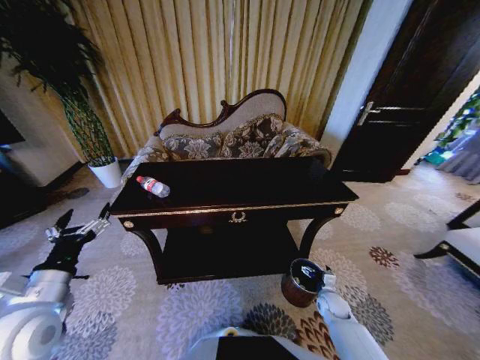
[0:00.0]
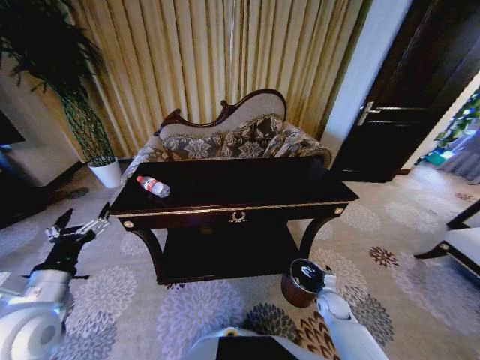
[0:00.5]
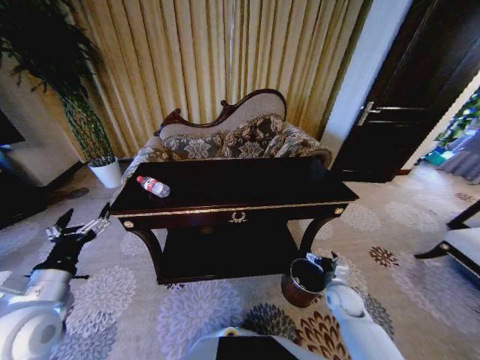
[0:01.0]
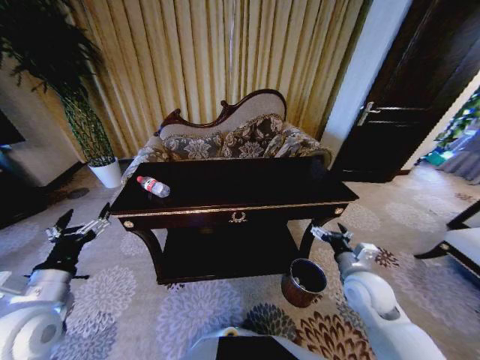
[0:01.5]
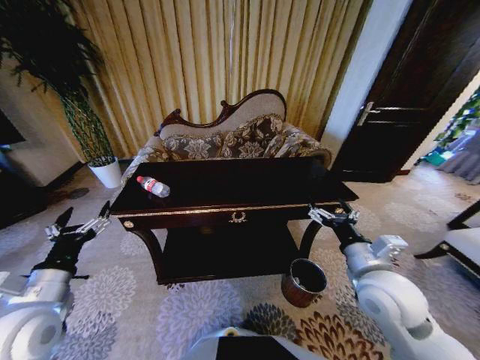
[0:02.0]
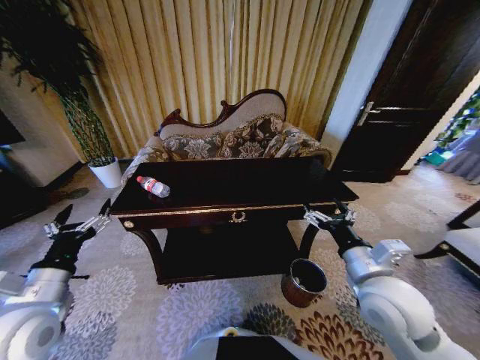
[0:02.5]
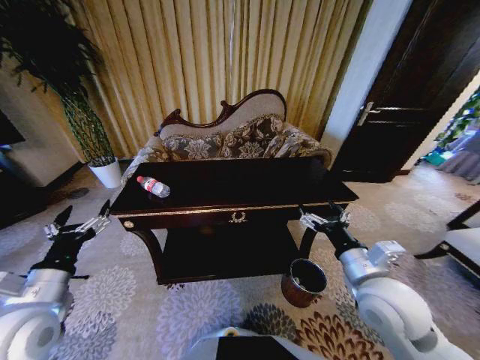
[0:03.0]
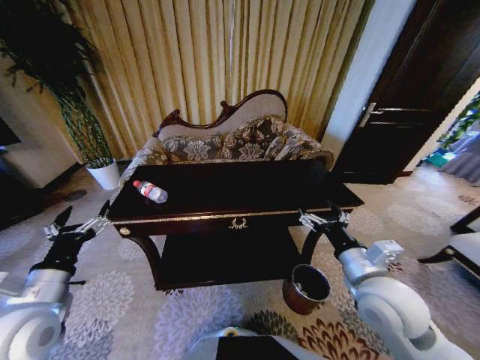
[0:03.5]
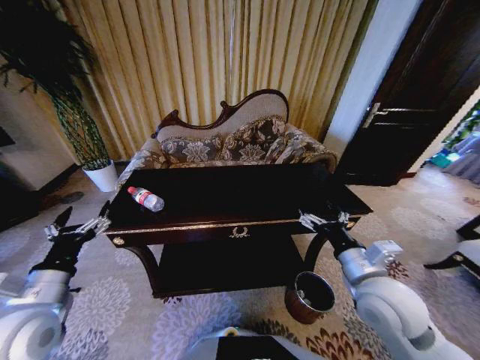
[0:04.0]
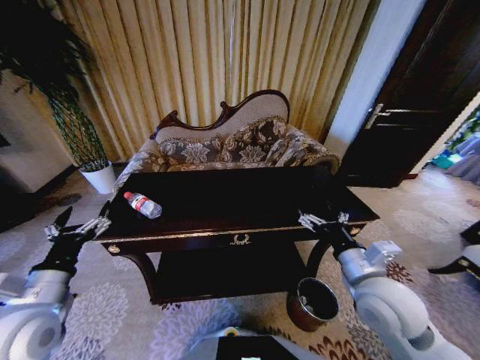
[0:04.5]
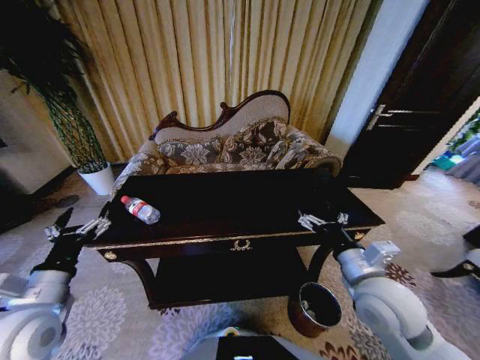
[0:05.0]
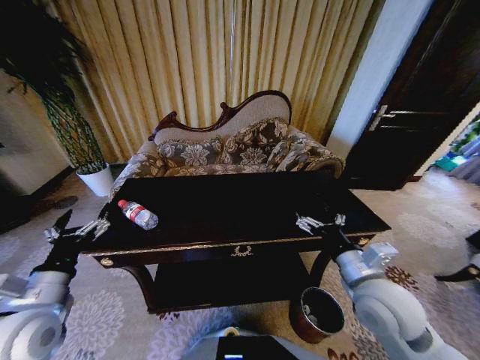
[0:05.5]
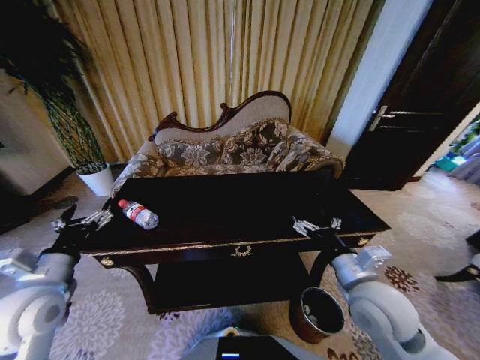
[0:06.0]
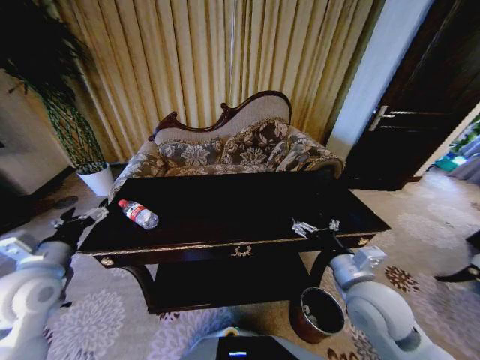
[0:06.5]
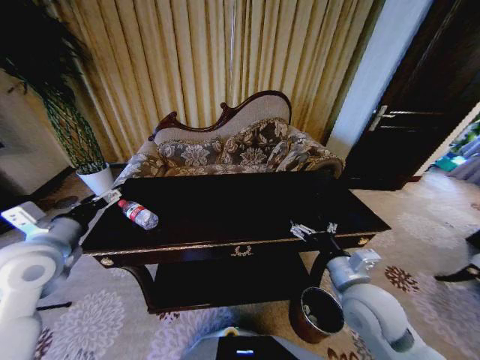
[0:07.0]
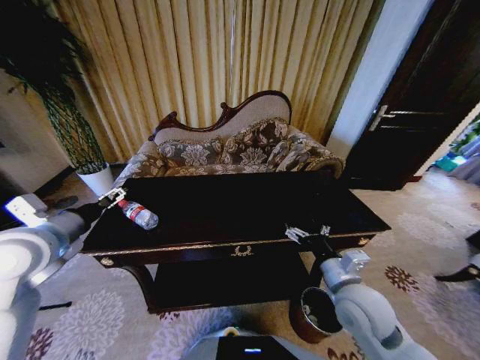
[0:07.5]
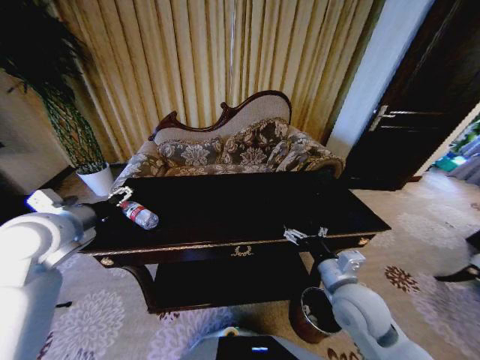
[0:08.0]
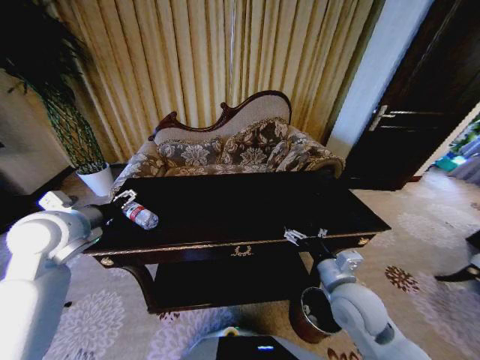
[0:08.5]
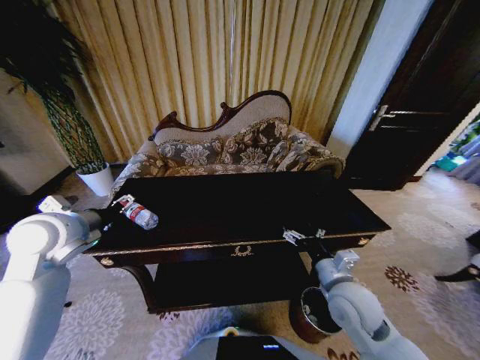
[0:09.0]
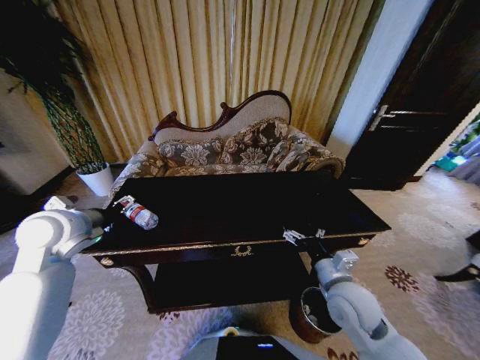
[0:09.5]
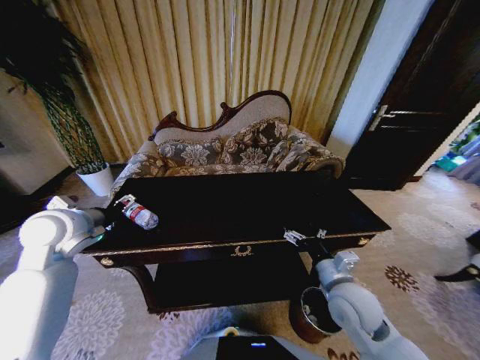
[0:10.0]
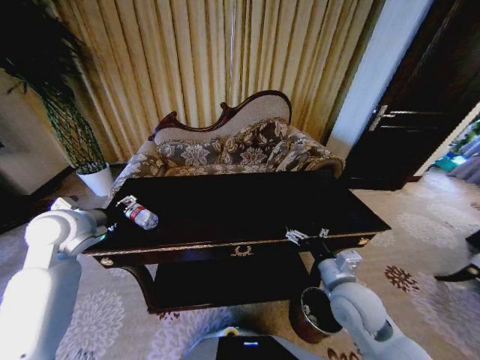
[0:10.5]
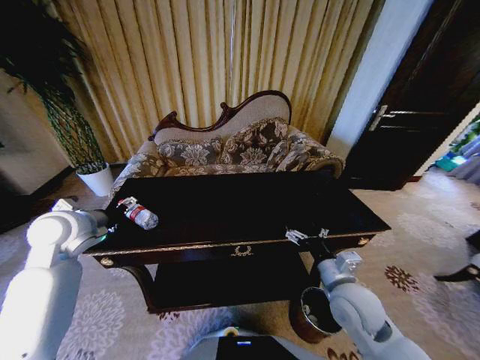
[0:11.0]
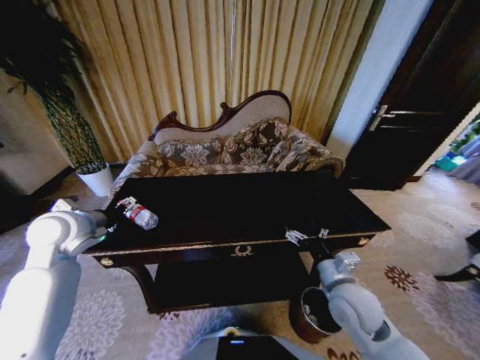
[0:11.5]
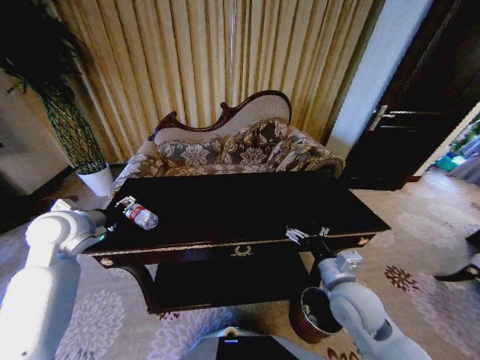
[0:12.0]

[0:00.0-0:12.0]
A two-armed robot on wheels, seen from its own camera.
Task of the whole recording: Move to the front of the table and place the trash on the table into the trash bin.
0:00.0 to 0:02.0: The right gripper shifts approximately 35 cm upward.
0:06.0 to 0:08.0: The left gripper moves forward and upward, about 15 cm.
0:08.0 to 0:10.0: The grippers stay close to where they were, moving slightly.
0:10.0 to 0:12.0: The grippers stay close to where they were, moving slightly.

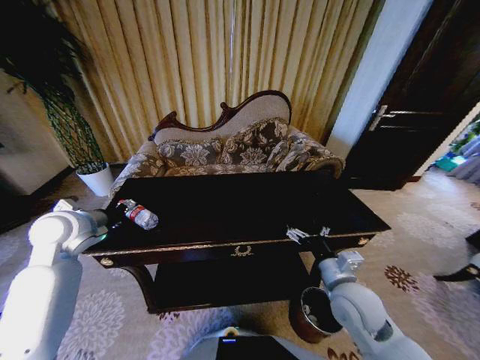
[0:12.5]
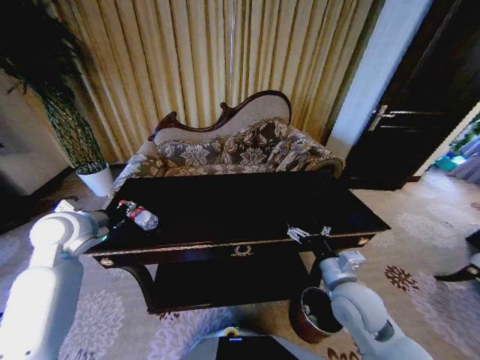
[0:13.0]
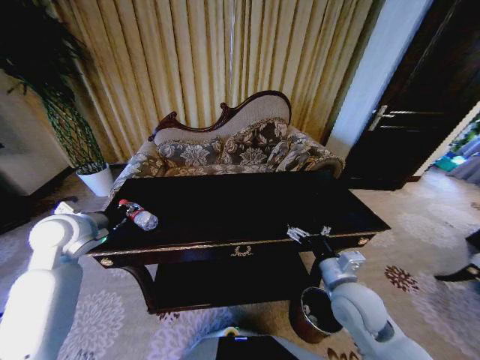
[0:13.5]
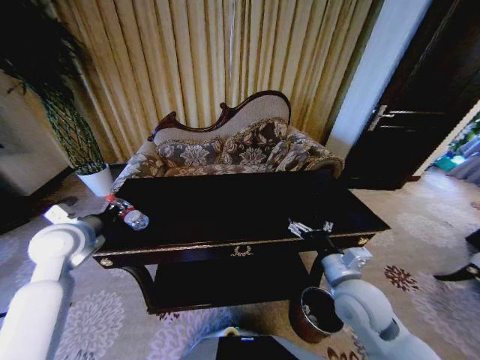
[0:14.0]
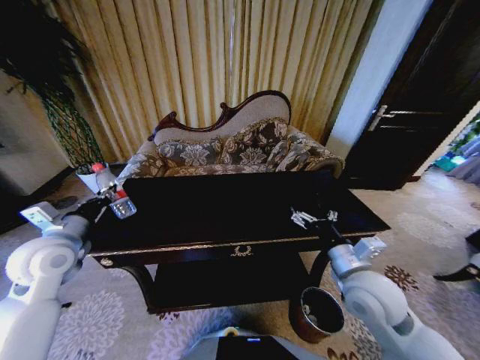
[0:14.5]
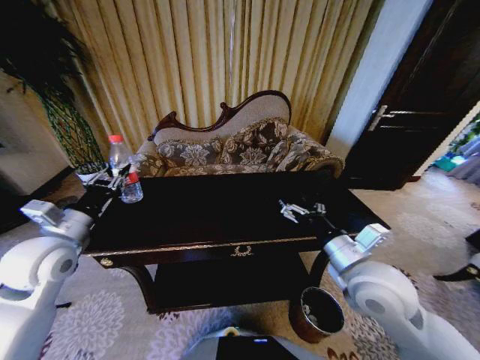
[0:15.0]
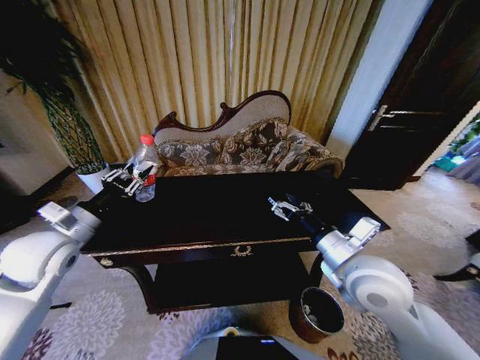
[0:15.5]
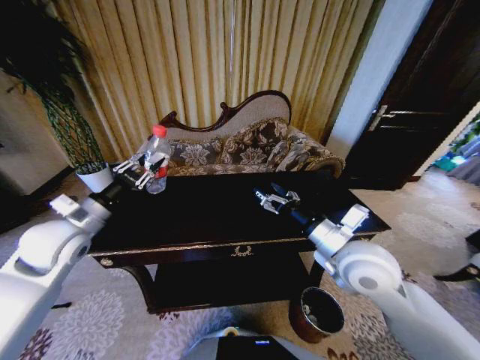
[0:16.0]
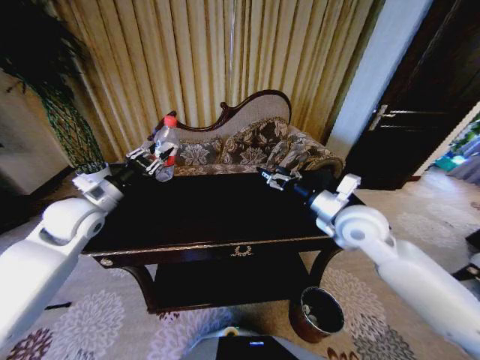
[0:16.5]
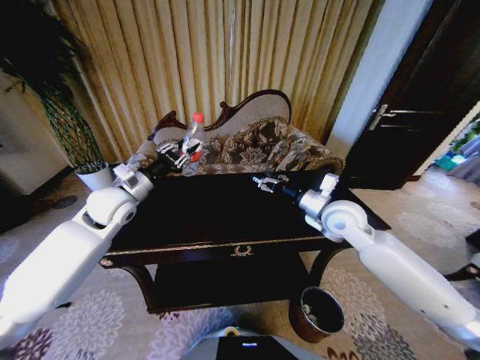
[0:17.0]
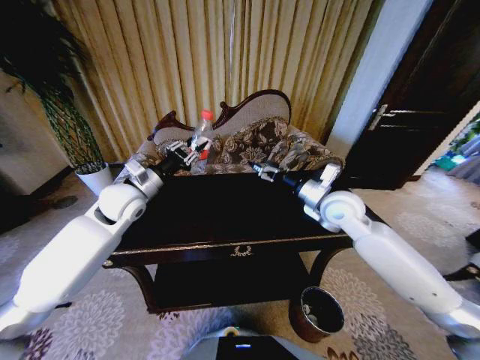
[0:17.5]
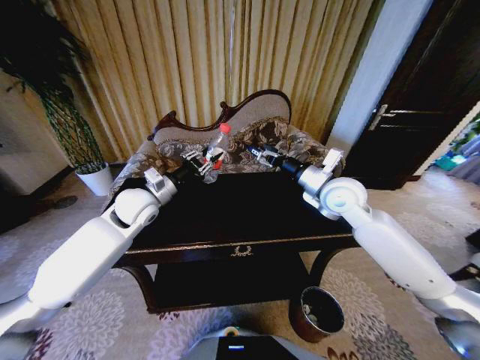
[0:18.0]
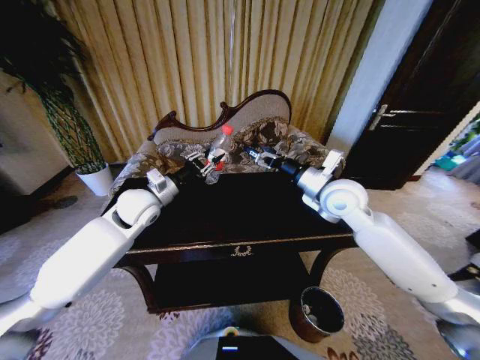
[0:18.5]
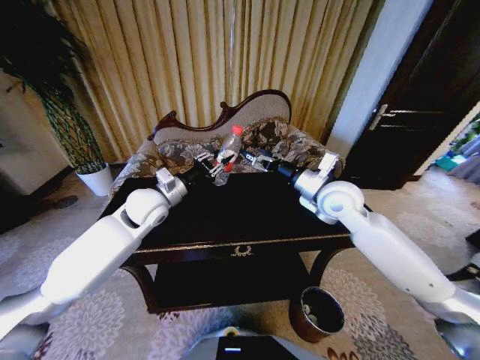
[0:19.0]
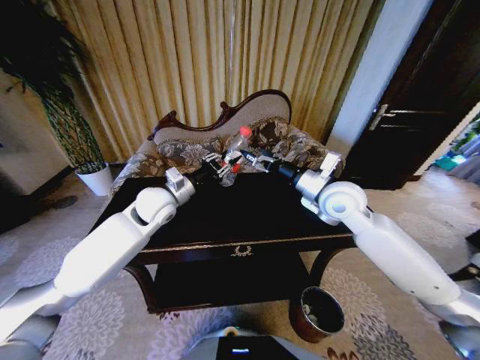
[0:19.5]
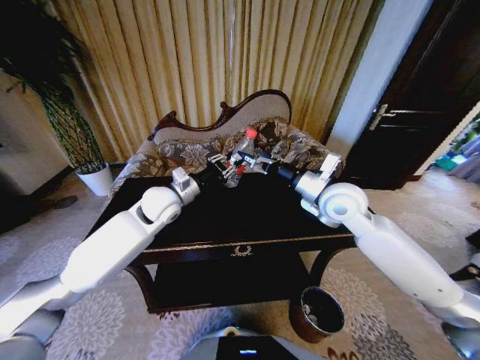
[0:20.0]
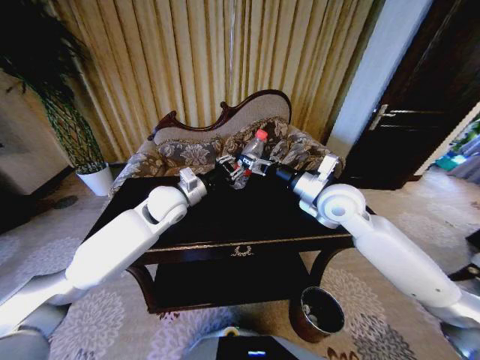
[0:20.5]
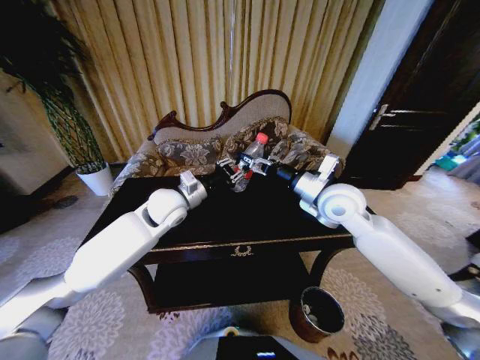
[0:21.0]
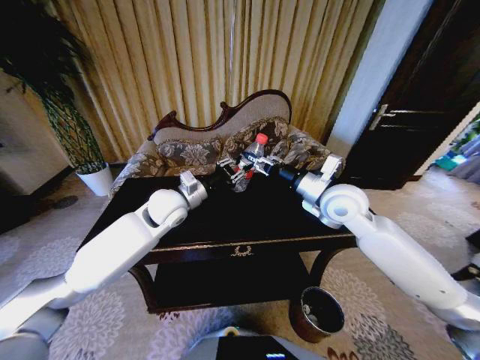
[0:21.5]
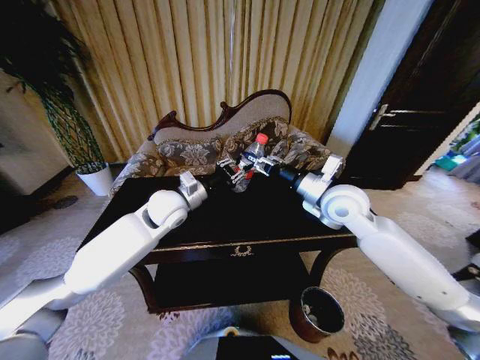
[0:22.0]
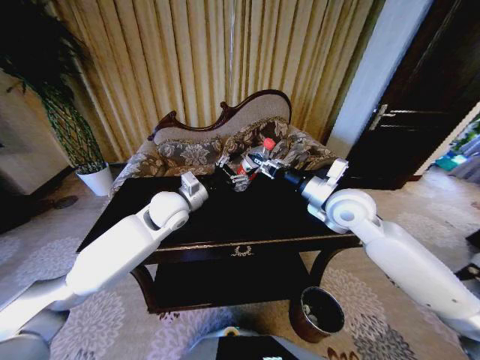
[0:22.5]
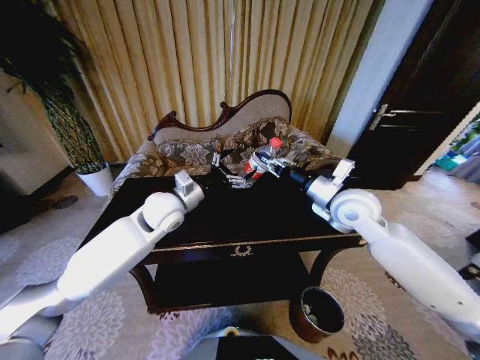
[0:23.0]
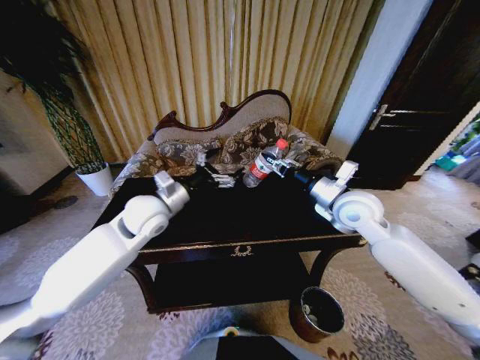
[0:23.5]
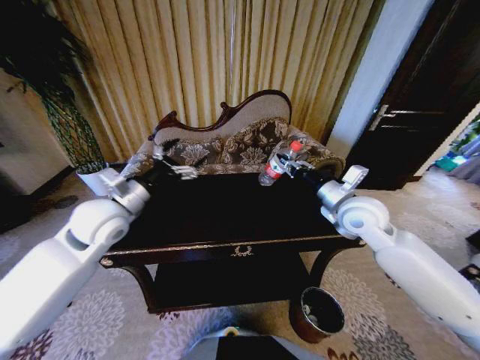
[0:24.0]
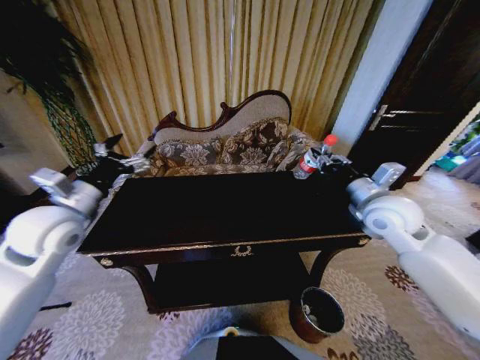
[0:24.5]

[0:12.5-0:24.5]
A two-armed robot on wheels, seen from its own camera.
Task of the whole recording: Move to the front of the table and place the trash on the table into the trash bin.
0:12.5 to 0:14.5: The left gripper is displaced backward by about 5 cm, and closes its fingers. Meanwhile the right gripper moves upward, approximately 5 cm.
0:14.5 to 0:16.5: The right gripper goes about 15 cm forward and upward. Meanwhile the left gripper is displaced forward by about 10 cm.
0:16.5 to 0:18.5: The left gripper goes about 10 cm to the right, while the right gripper is displaced forward by some 5 cm.
0:18.5 to 0:20.5: The left gripper moves to the right, roughly 5 cm.
0:20.5 to 0:22.5: The right gripper closes up, while the left gripper opens up.
0:22.5 to 0:24.5: The left gripper travels to the left and backward by approximately 20 cm, and opens its fingers. Meanwhile the right gripper moves to the right, approximately 10 cm.

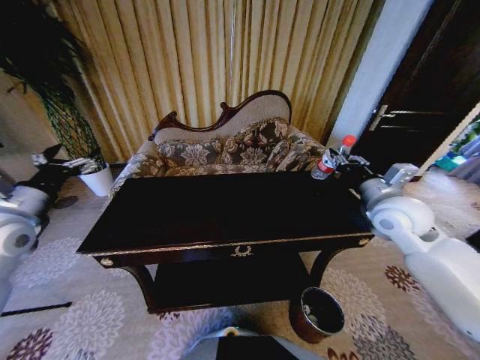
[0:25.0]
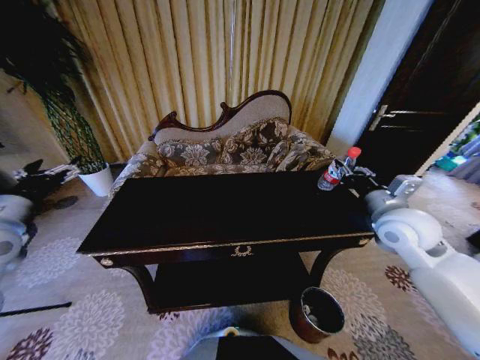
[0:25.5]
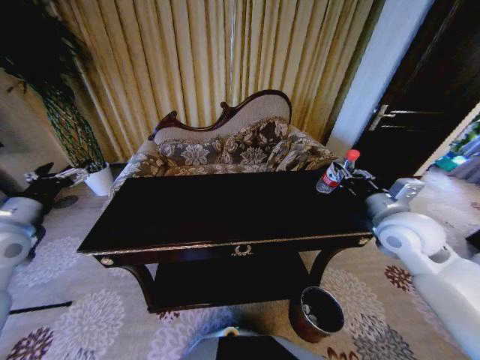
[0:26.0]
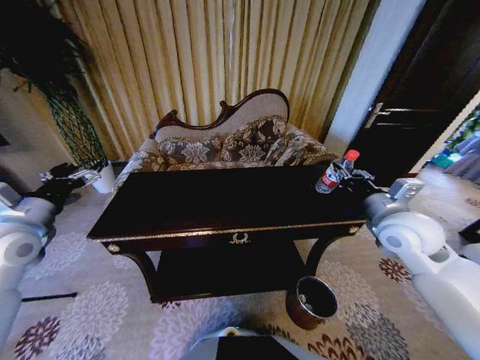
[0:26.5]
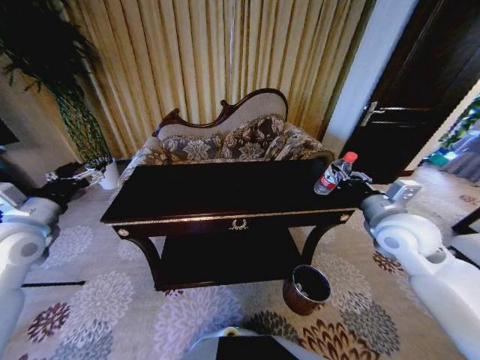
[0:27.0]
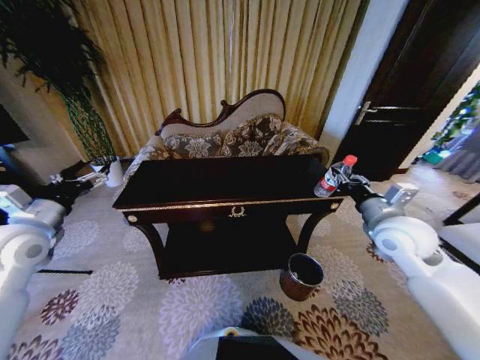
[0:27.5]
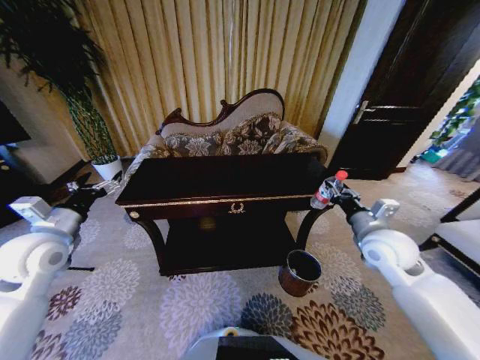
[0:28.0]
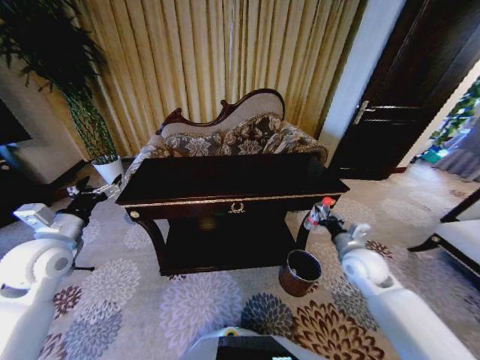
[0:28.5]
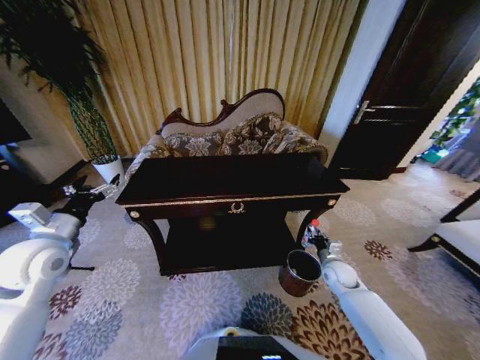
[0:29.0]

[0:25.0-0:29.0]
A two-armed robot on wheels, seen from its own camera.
Task of the whole recording: Move to the front of the table and place the trash on the table into the trash bin.
0:27.0 to 0:29.0: The left gripper moves some 5 cm. The right gripper travels downward by some 30 cm.
